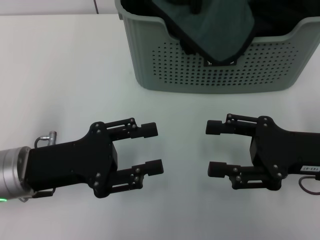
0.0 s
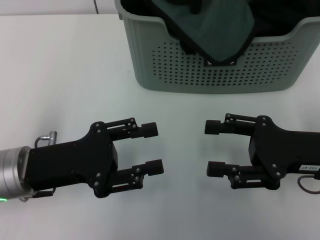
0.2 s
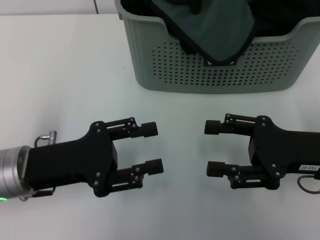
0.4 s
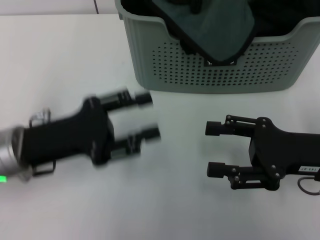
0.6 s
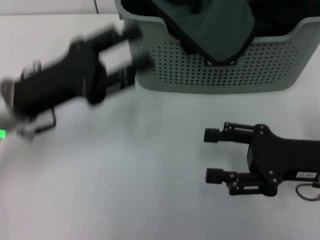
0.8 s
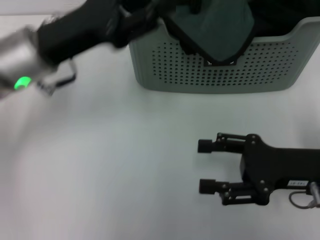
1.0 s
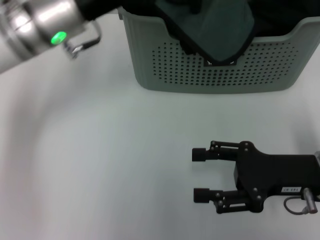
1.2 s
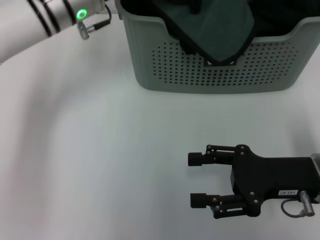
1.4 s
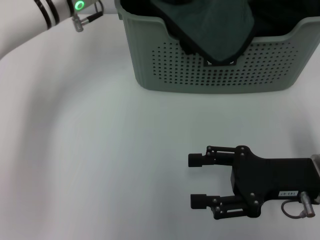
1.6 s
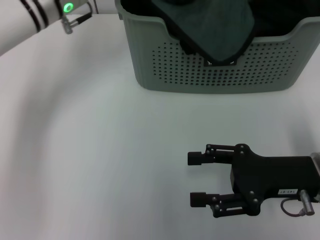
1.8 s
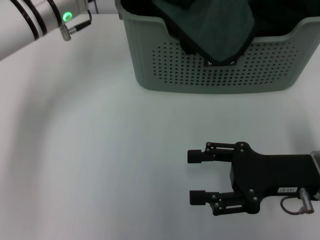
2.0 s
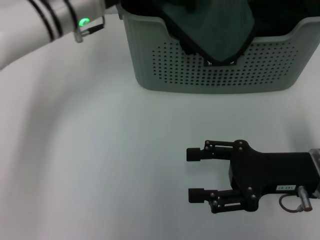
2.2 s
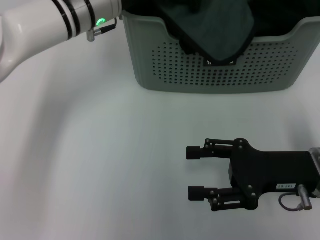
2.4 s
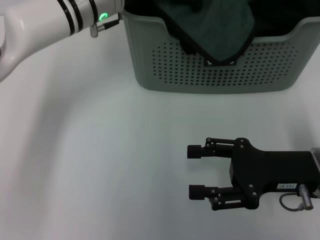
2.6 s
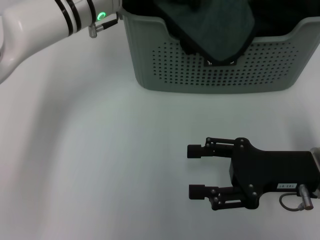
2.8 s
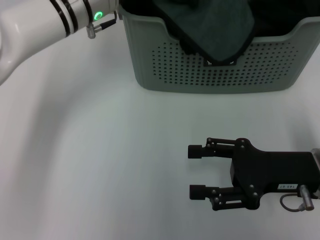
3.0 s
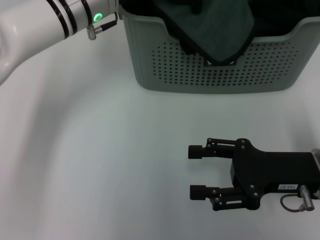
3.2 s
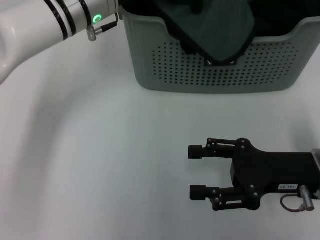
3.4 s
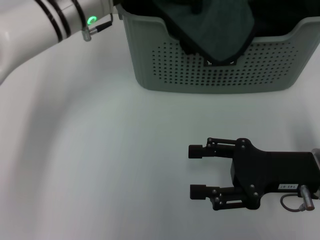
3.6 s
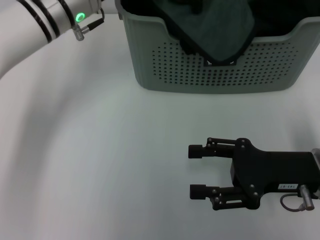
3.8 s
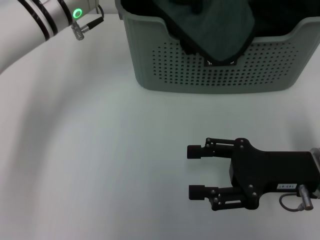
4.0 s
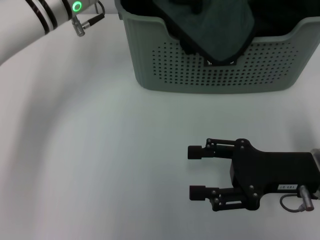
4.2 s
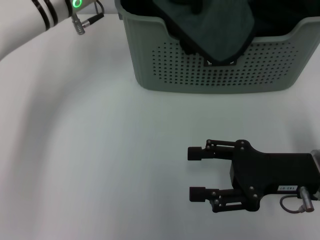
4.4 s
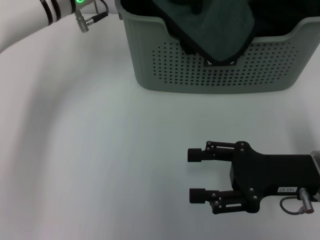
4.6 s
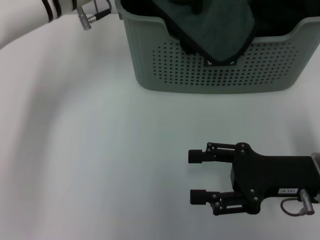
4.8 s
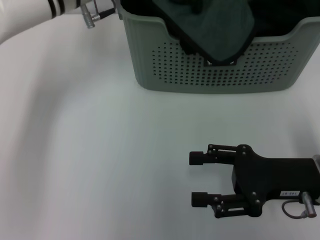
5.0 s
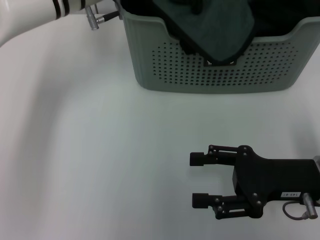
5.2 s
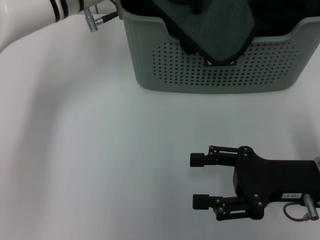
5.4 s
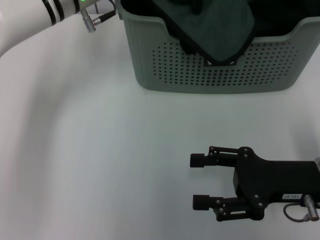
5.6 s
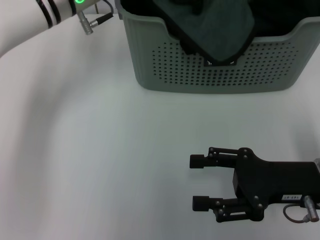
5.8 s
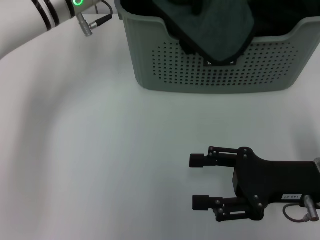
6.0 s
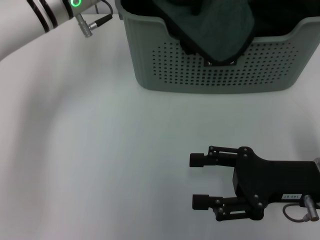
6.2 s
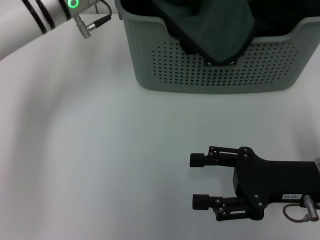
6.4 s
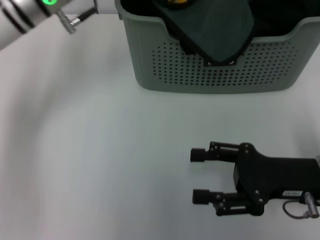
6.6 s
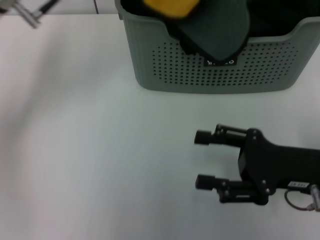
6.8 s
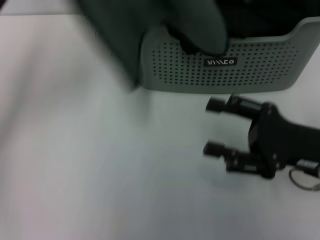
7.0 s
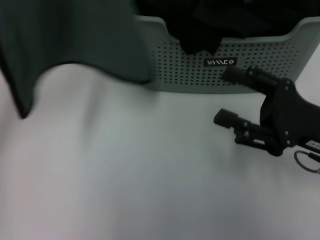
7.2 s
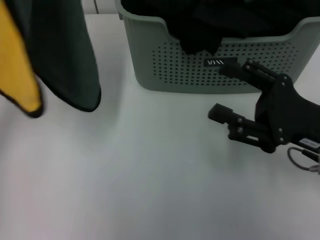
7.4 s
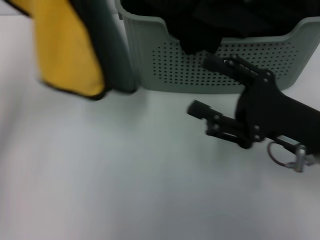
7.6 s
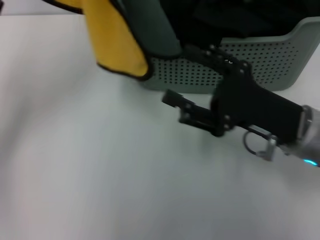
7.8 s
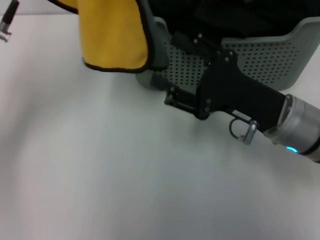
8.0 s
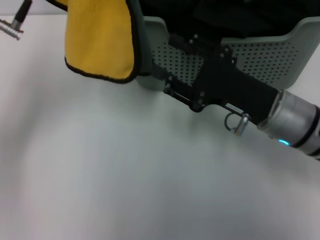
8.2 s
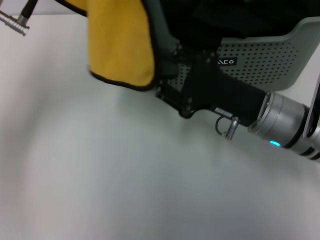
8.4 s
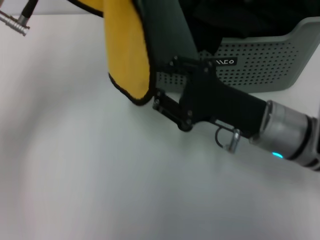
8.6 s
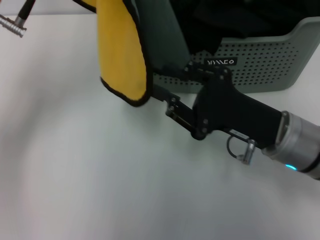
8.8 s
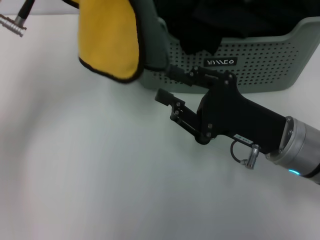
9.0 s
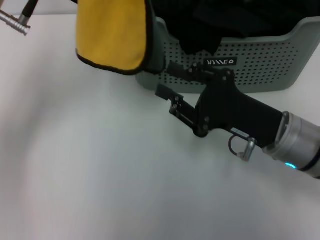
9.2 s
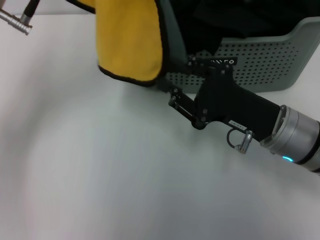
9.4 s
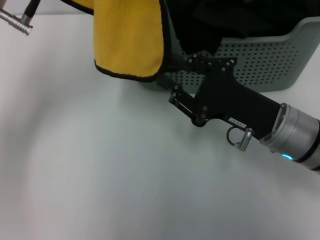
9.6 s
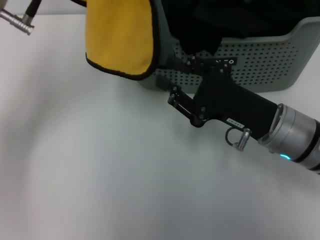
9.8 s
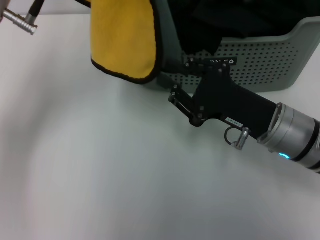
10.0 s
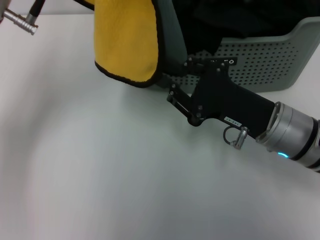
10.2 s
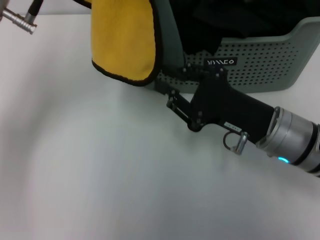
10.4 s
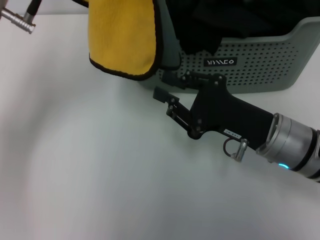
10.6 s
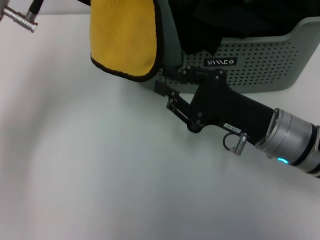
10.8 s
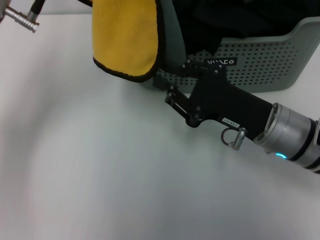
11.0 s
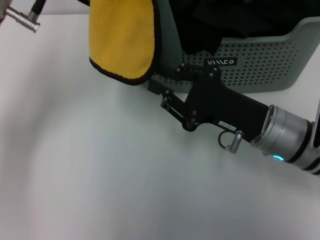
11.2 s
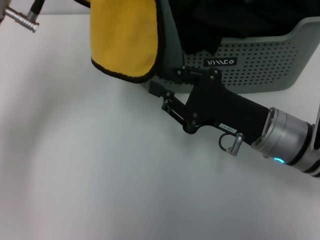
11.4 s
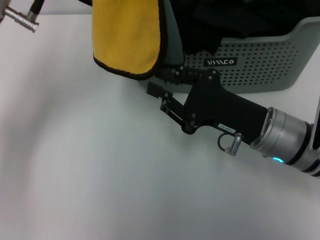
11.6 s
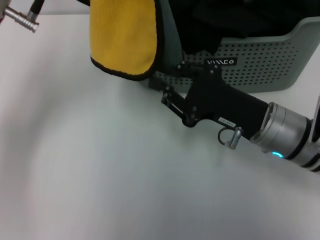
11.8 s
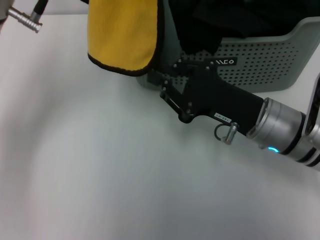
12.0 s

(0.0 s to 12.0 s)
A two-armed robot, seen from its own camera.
Task of the whole recording: pick up the towel from the storage box and lay it flat on the table.
Step, 0.0 s - 6.4 s: Pick up a towel with the left gripper.
0.0 s - 1.6 s: The left gripper moves forward and upward, approximately 20 cm.
1.6 s - 3.0 s: There are only small adjustments of the grippers.
3.0 s - 4.4 s: The left gripper closes, then reopens.
4.4 s - 6.0 s: The left gripper closes its fingers.
6.0 s - 7.6 s: The left gripper moves backward and to the left, about 15 cm.
7.6 s - 9.0 s: The right gripper closes its fingers.
9.0 s - 12.0 s: There are only small adjustments of the grippers.

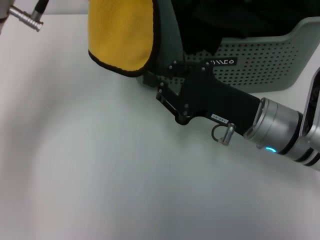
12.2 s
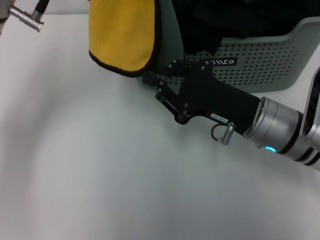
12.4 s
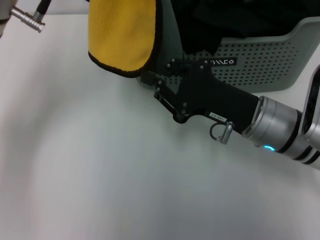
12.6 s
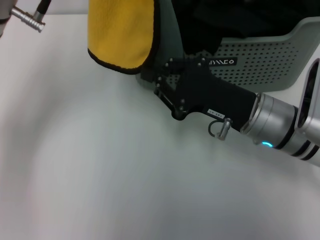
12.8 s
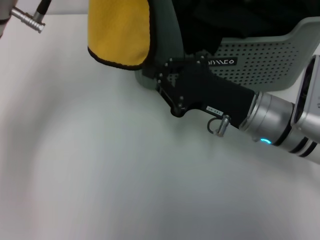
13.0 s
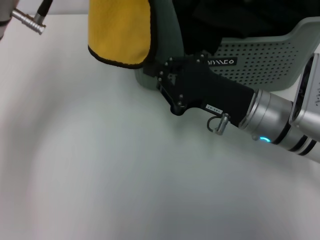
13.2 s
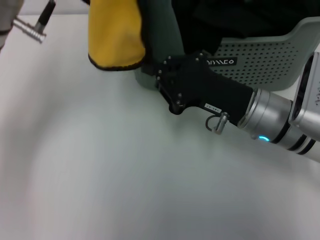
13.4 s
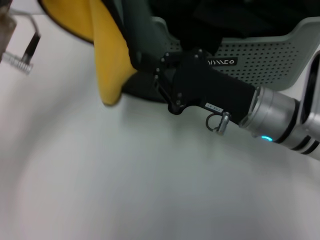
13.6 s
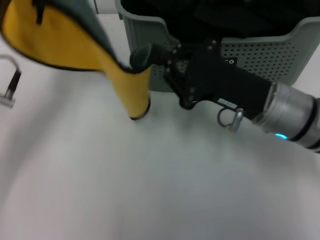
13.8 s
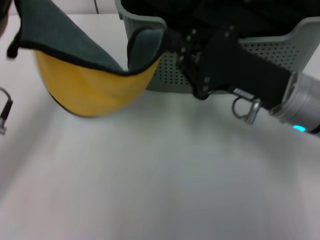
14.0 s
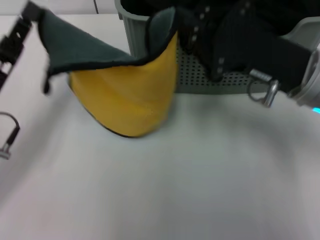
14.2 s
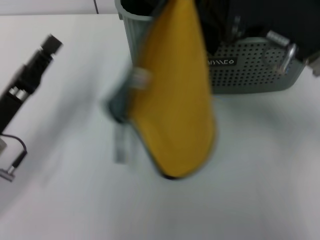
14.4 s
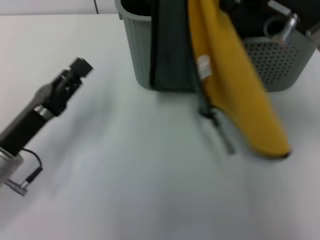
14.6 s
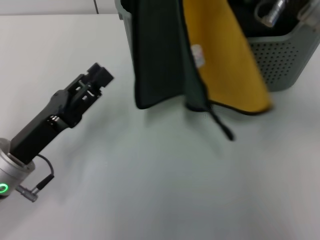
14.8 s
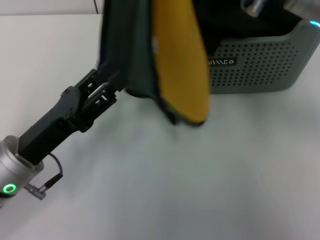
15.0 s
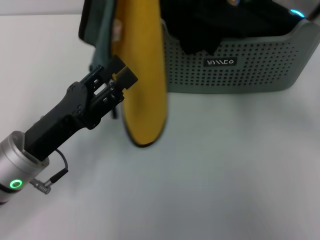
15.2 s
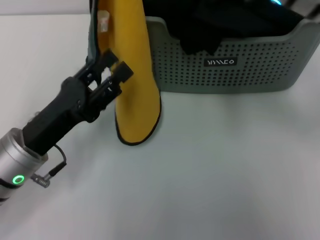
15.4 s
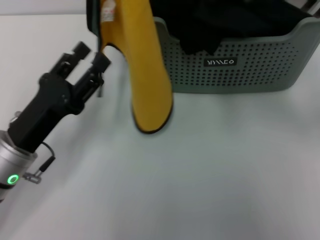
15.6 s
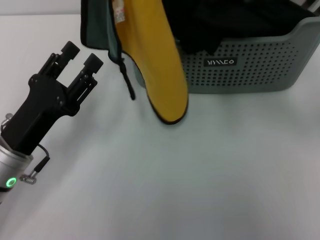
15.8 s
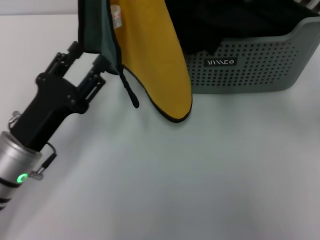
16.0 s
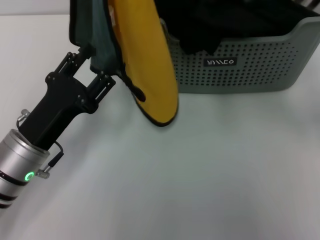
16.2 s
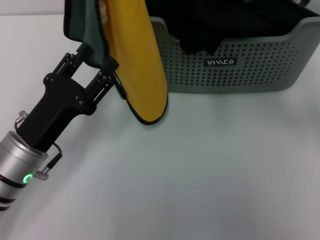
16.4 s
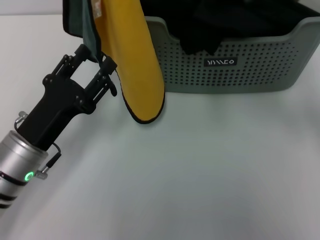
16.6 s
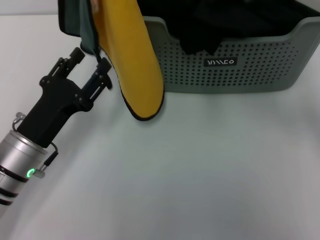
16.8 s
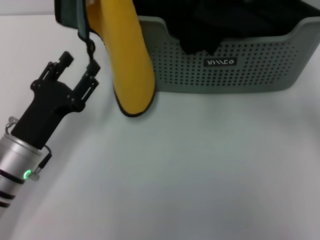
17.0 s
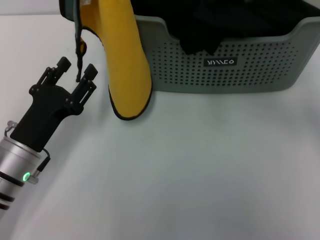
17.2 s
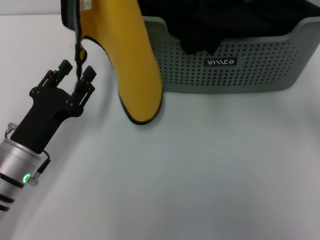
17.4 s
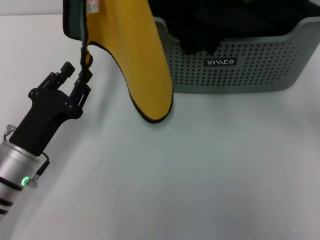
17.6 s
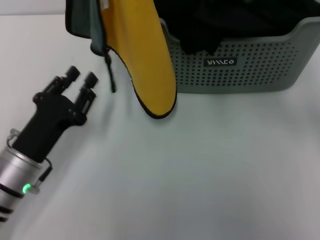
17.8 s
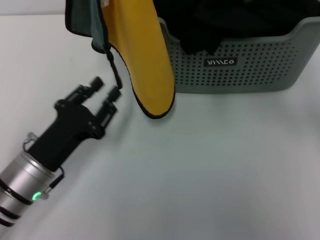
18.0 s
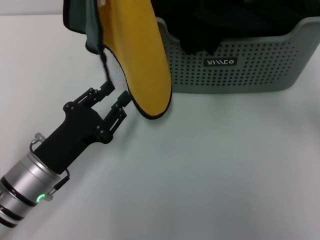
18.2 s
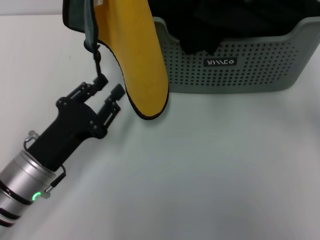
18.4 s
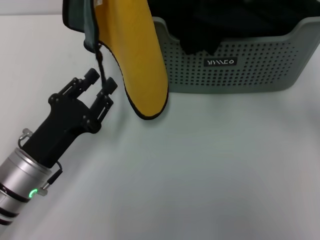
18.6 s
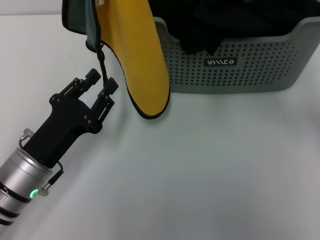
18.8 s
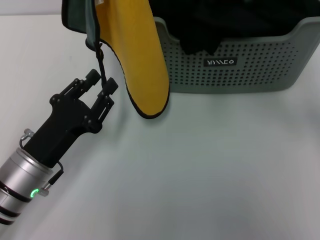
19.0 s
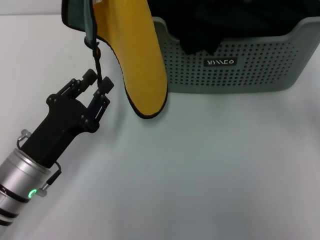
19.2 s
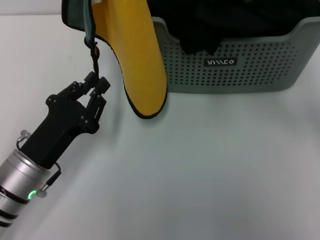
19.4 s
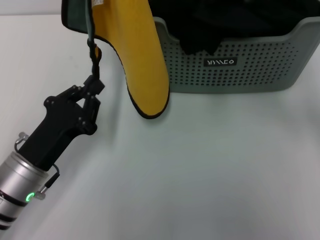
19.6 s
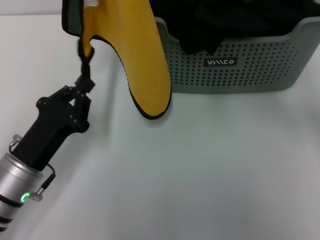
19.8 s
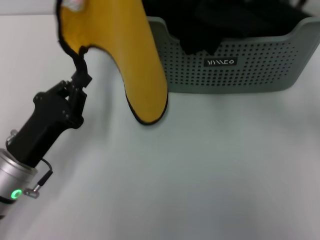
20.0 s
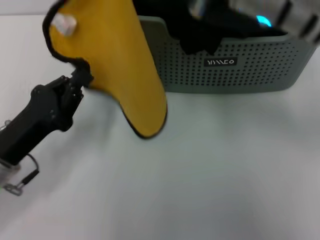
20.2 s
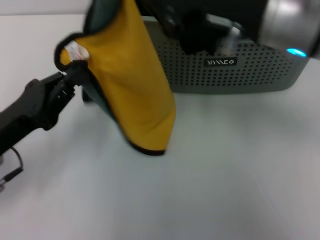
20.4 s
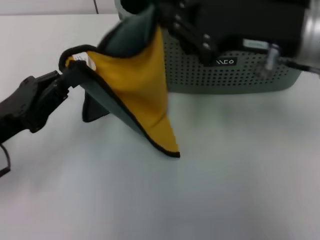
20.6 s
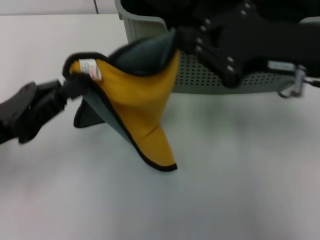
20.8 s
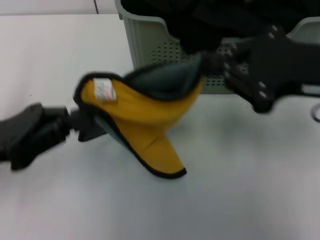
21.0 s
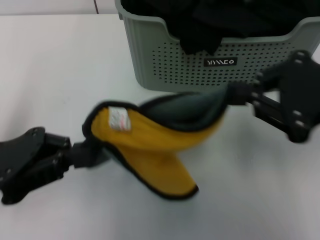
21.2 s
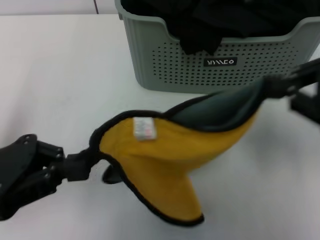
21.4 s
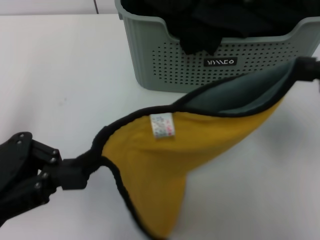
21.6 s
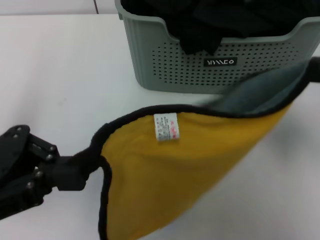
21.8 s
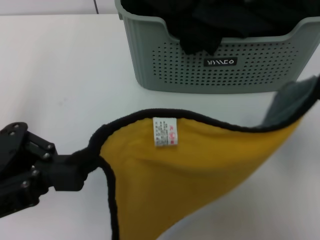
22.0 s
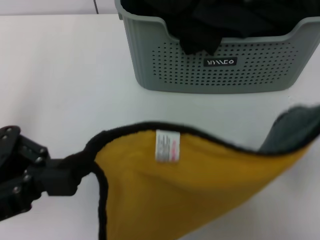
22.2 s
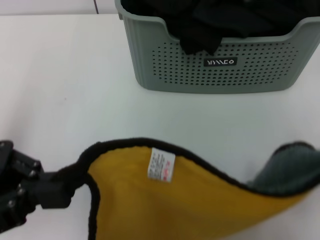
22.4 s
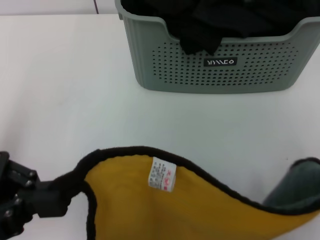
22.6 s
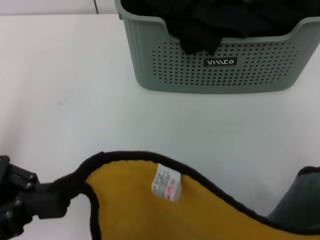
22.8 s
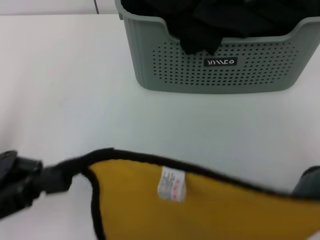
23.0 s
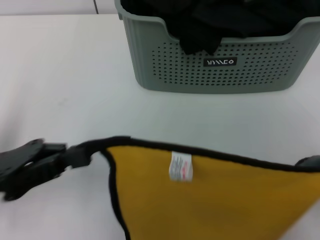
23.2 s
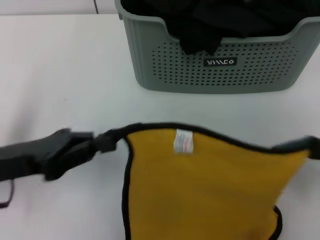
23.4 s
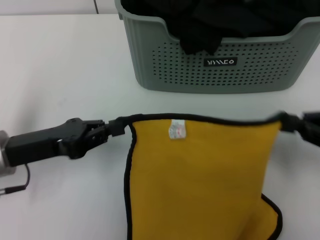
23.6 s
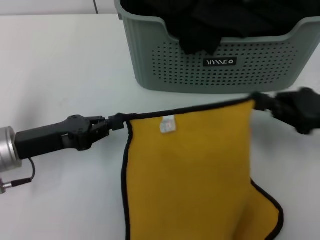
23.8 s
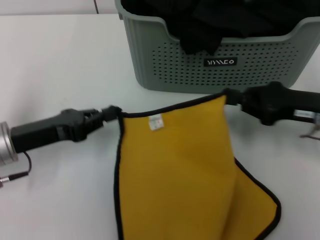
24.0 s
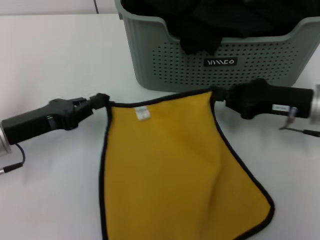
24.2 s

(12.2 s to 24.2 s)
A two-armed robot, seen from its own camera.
Task of the whole recording: pick up the towel from the storage box and lay it flat on the table.
12.2 s - 13.8 s: The left gripper goes approximately 10 cm downward and to the left.
13.8 s - 15.2 s: The left gripper travels backward and downward by roughly 10 cm, and opens its fingers; the right gripper heads upward, covering roughly 15 cm.
15.2 s - 16.6 s: The right gripper changes place by about 5 cm.
16.6 s - 18.2 s: The grippers stay close to where they were, moving slightly.
18.2 s - 19.8 s: The left gripper closes.
19.8 s - 21.2 s: The right gripper heads to the right and backward, covering approximately 20 cm. The left gripper is displaced upward and to the left by roughly 15 cm.
21.2 s - 22.6 s: The left gripper moves some 5 cm. Meanwhile the right gripper goes some 10 cm backward and to the right.
22.6 s - 24.2 s: The right gripper shifts approximately 25 cm forward and downward. Meanwhile the left gripper travels downward and forward by some 15 cm.
